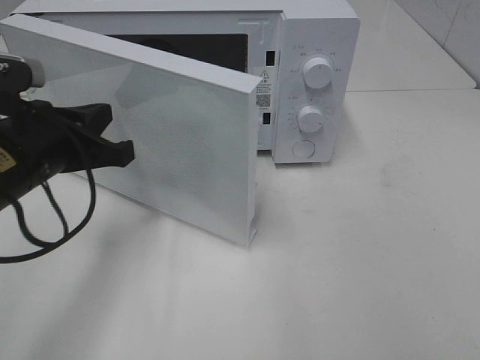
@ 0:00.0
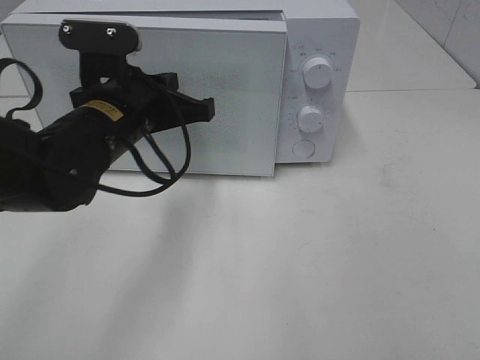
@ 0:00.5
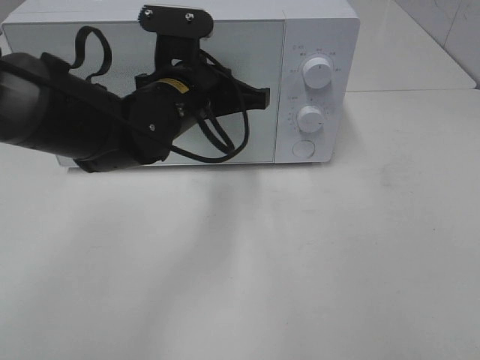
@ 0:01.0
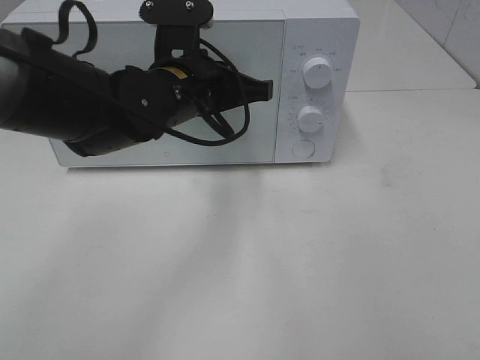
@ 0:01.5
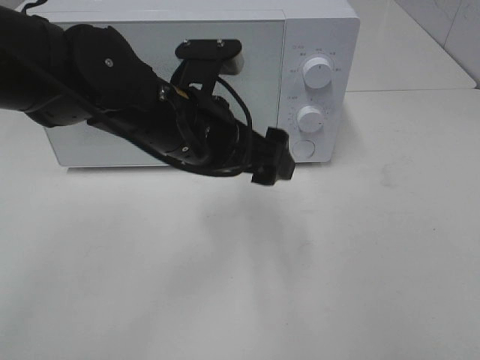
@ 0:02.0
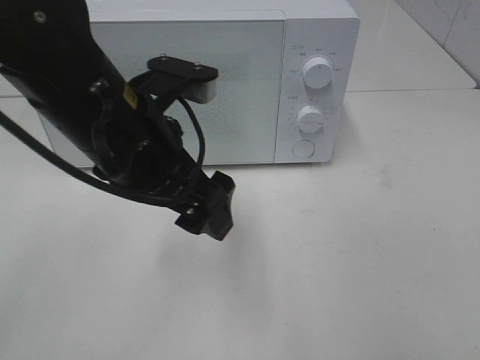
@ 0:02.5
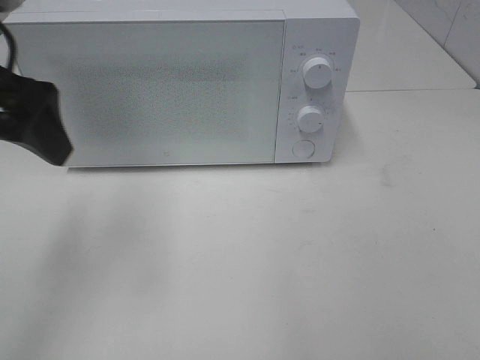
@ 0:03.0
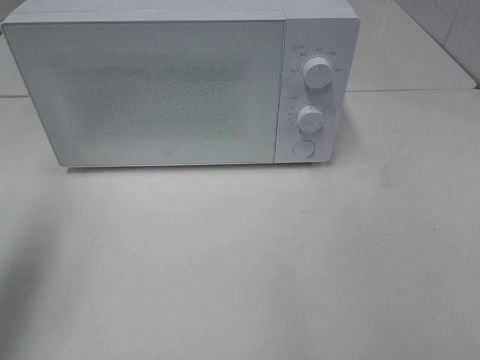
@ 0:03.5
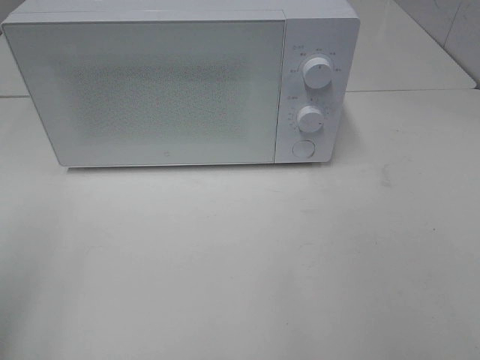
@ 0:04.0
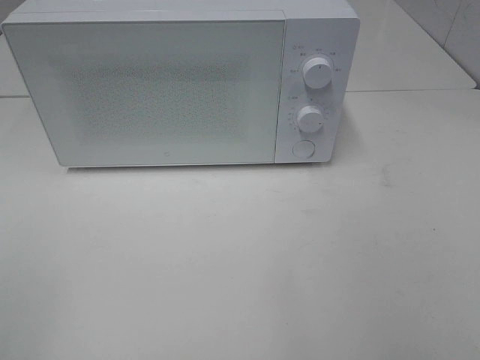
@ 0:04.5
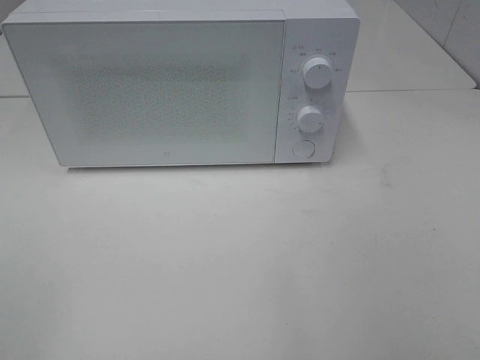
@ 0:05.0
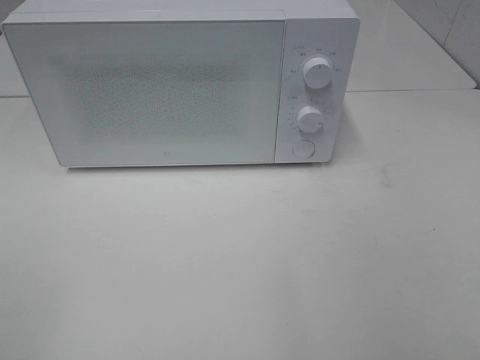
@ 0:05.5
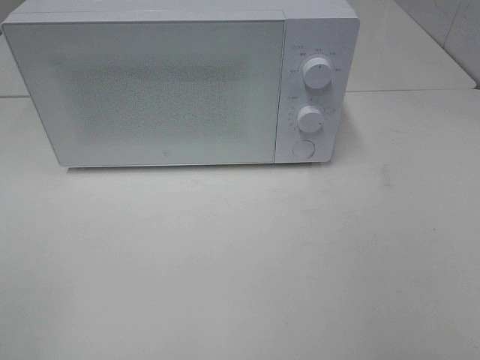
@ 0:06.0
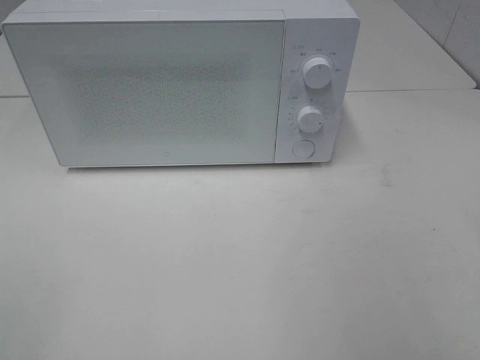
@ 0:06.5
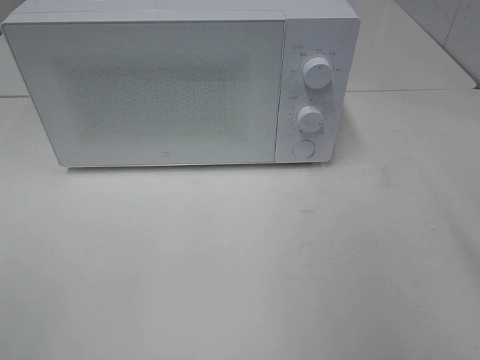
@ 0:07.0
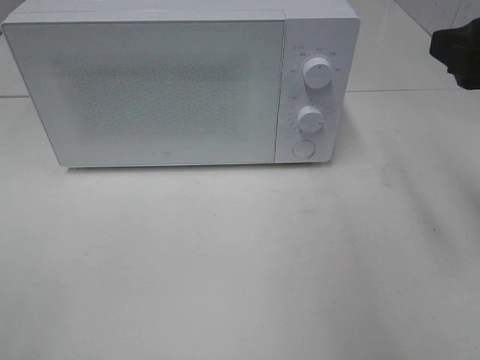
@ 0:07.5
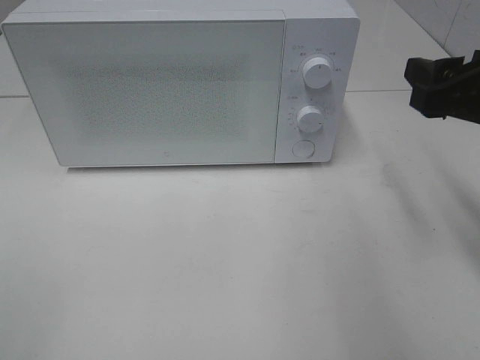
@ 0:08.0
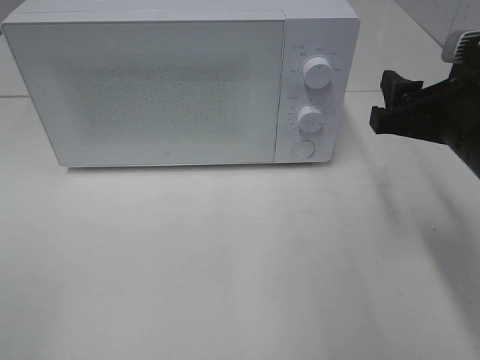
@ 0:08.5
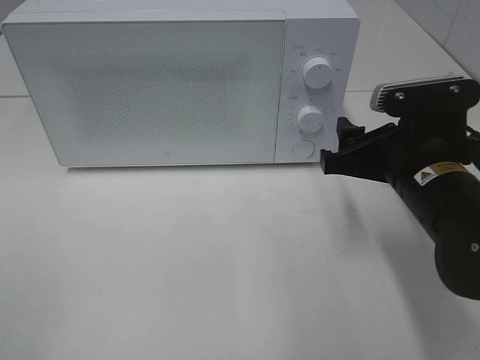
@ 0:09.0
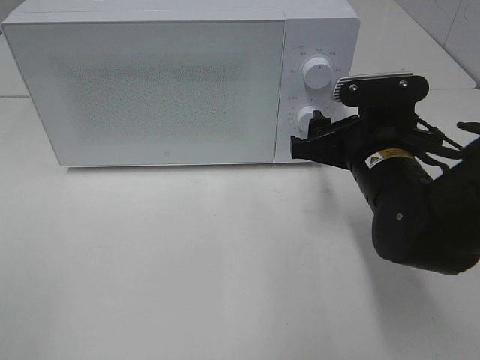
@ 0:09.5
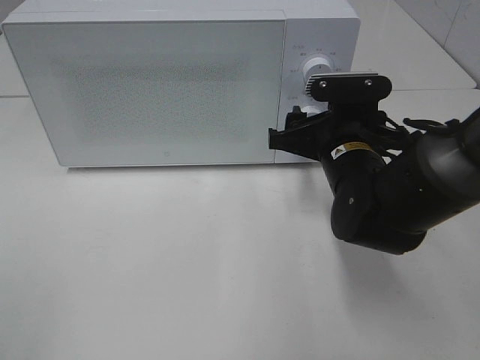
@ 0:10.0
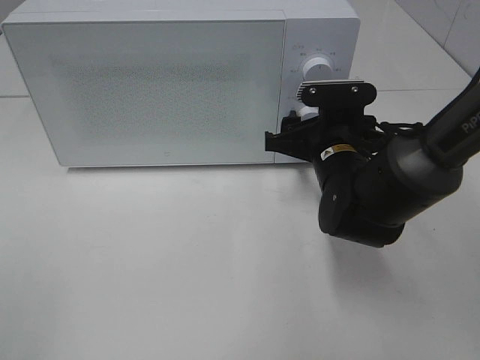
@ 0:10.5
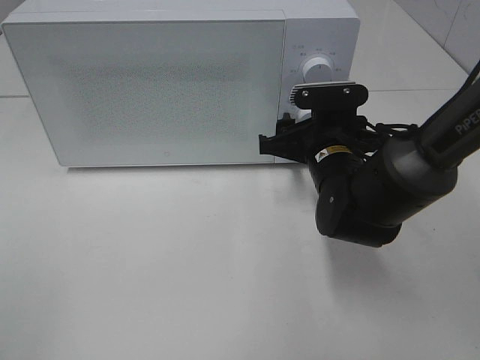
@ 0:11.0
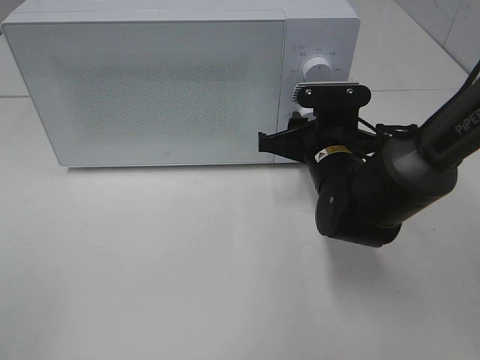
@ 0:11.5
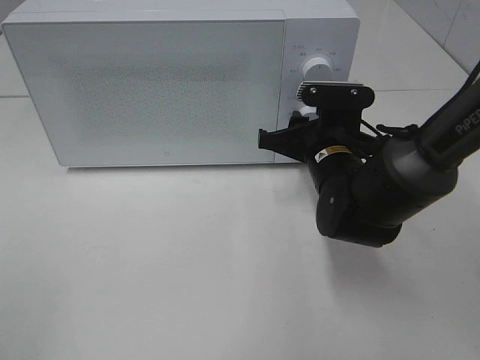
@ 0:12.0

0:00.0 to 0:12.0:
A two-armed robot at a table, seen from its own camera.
Task of the whole recording: Heat the burger.
Step, 0:00.0 to 0:02.5: Left hand: close the microwave door.
0:00.0 to 0:02.0: The left gripper is displaced to the right by about 15 cm, and opens.
0:02.0 to 0:04.0: The left gripper is displaced to the left and backward by some 35 cm.
0:06.0 to 0:08.0: The right gripper moves forward, some 20 cm.
0:08.0 to 0:10.0: The right gripper goes some 15 cm to the left, downward and forward.
0:10.0 to 0:12.0: The right gripper closes its fingers.

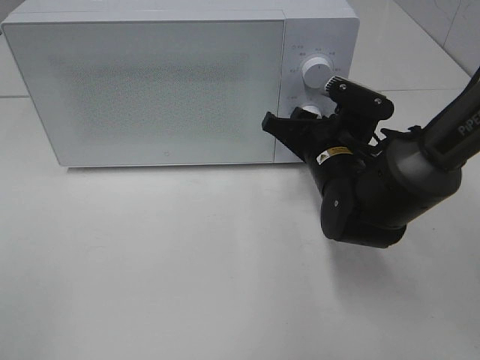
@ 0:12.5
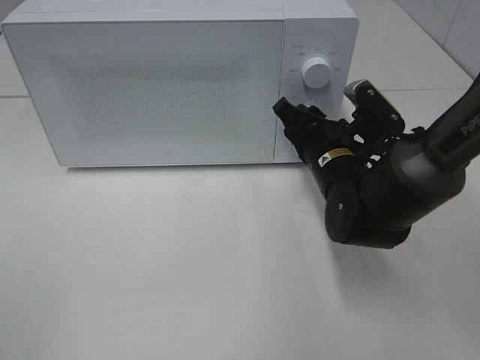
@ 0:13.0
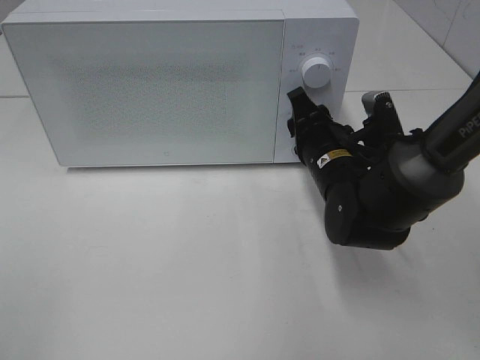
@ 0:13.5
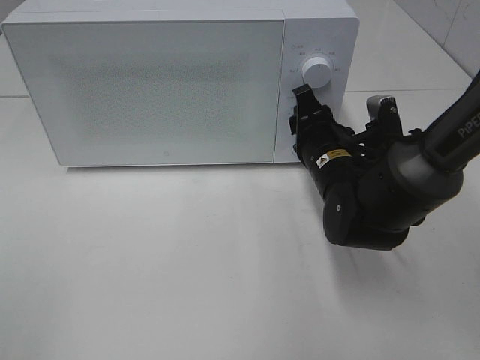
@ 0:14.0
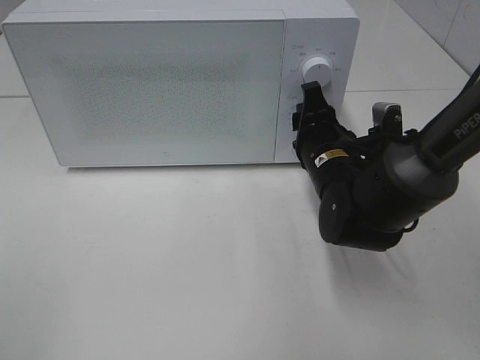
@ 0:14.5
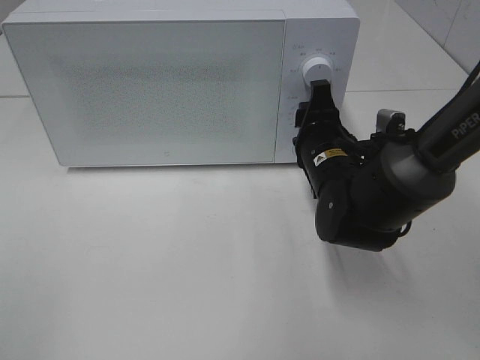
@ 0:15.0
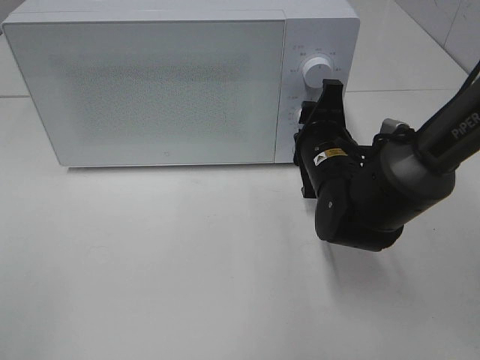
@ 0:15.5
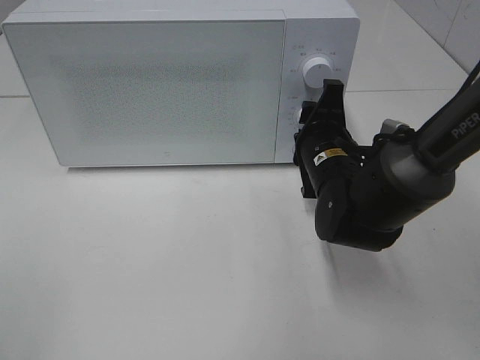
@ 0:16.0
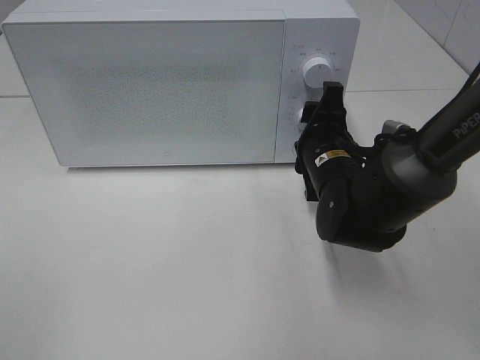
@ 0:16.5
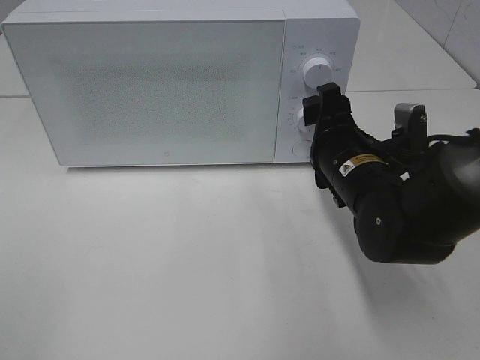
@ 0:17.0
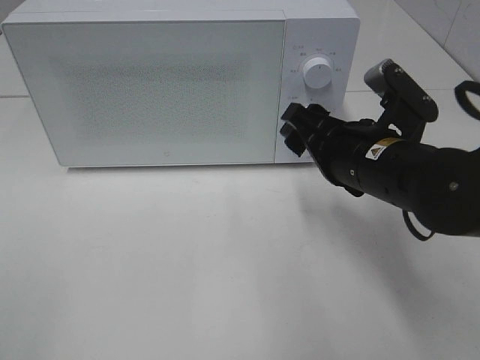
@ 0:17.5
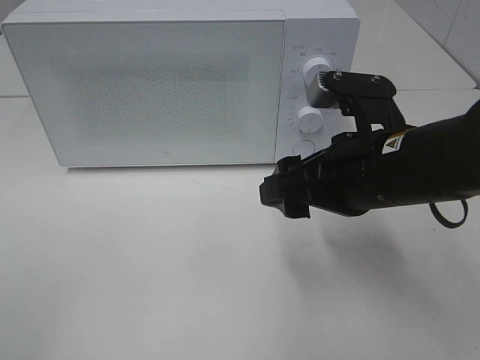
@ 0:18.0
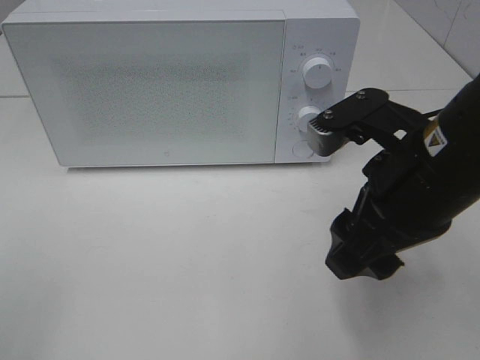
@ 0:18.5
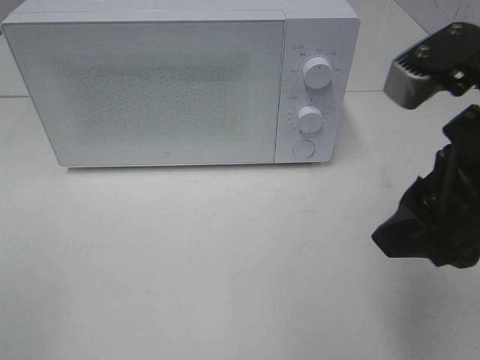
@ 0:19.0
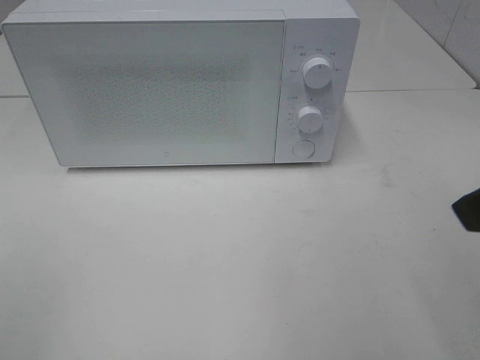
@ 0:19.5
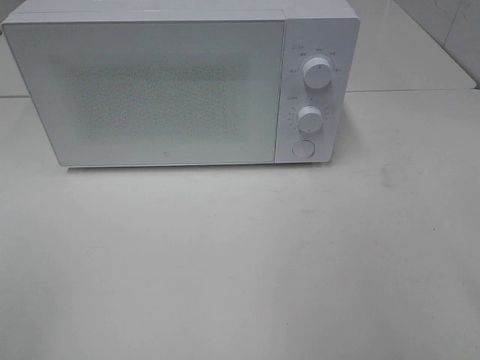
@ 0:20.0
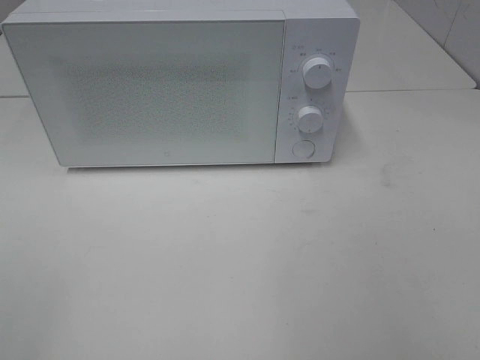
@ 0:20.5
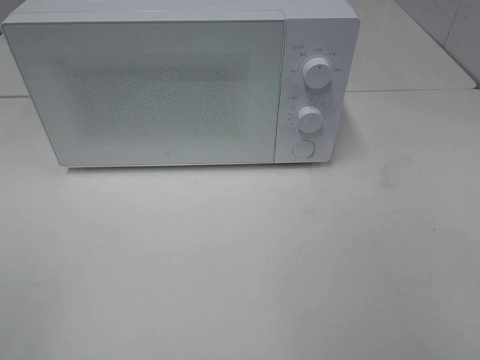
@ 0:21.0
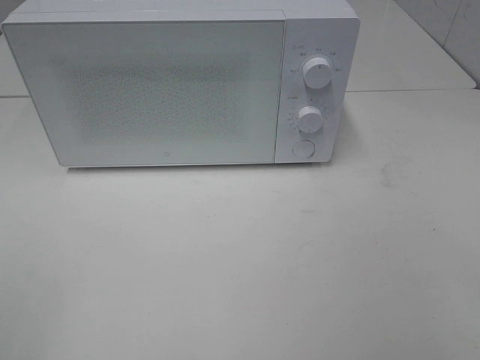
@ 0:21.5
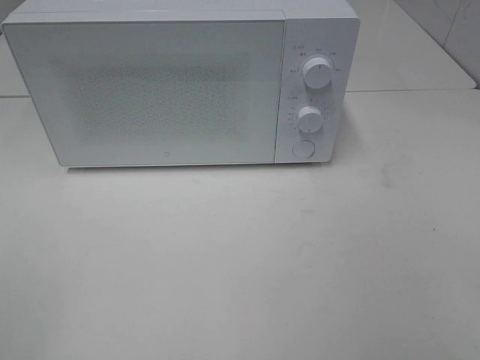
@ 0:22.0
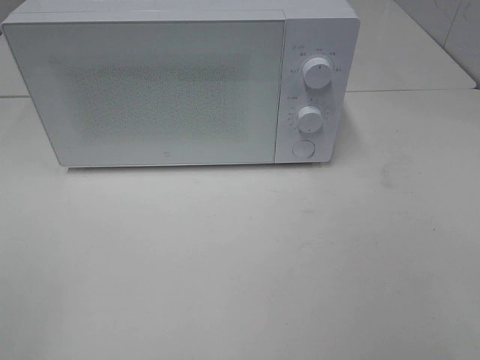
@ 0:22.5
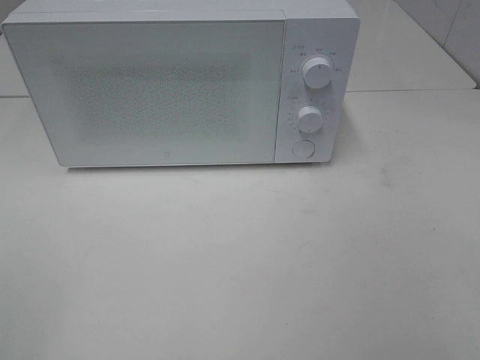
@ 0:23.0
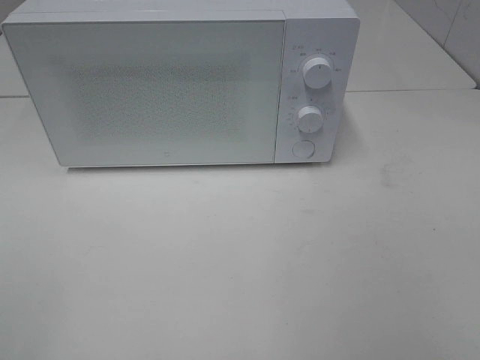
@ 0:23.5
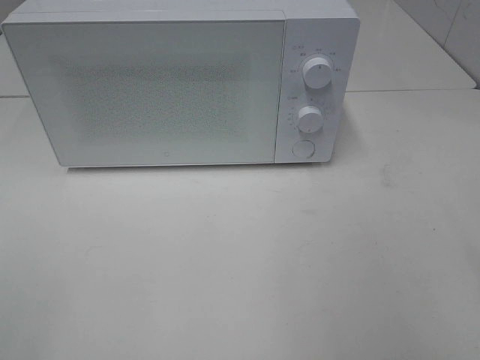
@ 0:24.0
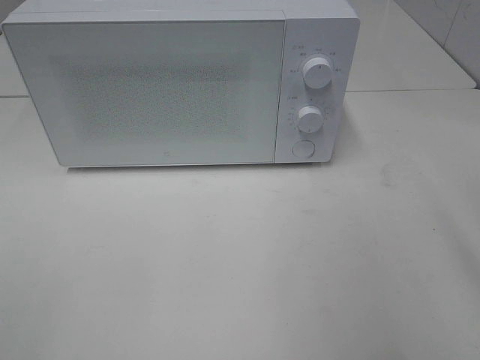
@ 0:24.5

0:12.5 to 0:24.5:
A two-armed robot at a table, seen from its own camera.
Task of the whole recording: Heat the burger.
Step, 0:12.5 to 0:17.0: Right hand: twist timer button.
0:14.5 to 0:16.5: There are only small adjustments of the grippers.
0:16.5 to 0:18.5: The right gripper shifts approximately 15 cm backward and upward.
0:18.5 to 0:20.5: The right gripper heads backward, to the right and upward, covering some 25 cm.

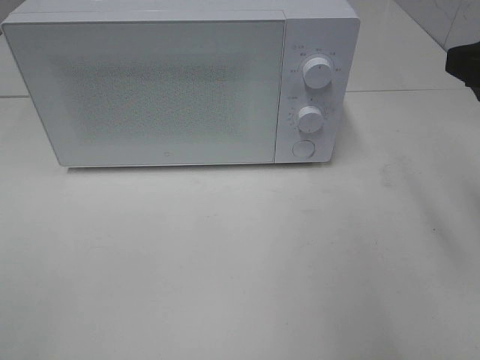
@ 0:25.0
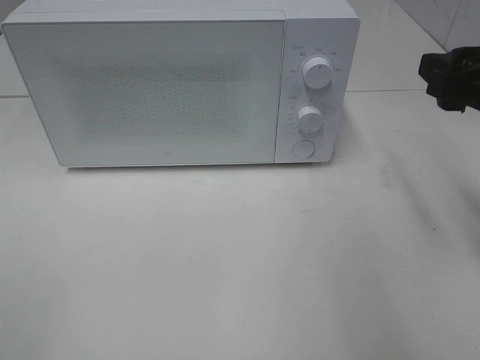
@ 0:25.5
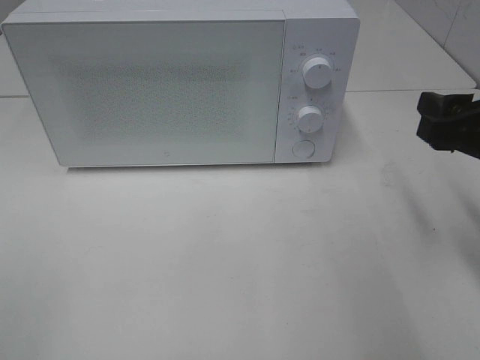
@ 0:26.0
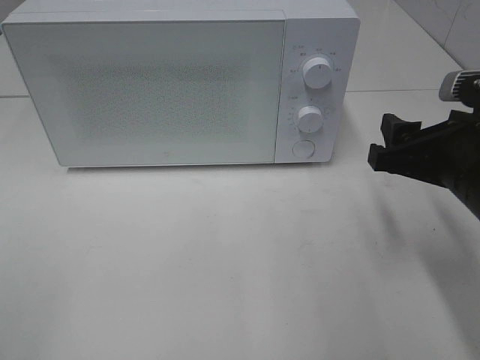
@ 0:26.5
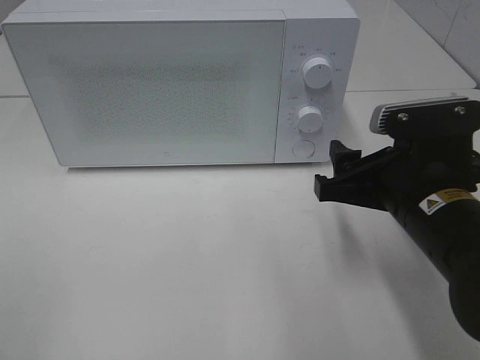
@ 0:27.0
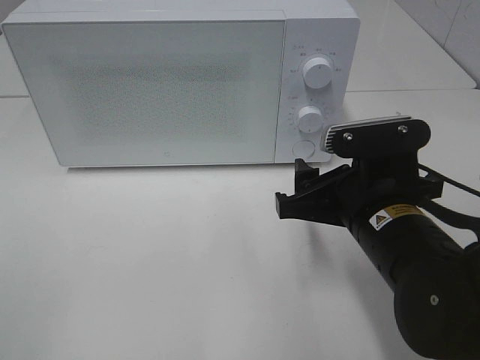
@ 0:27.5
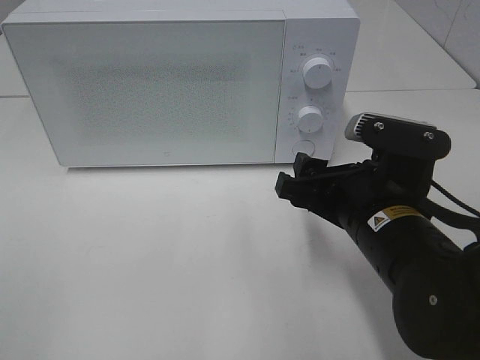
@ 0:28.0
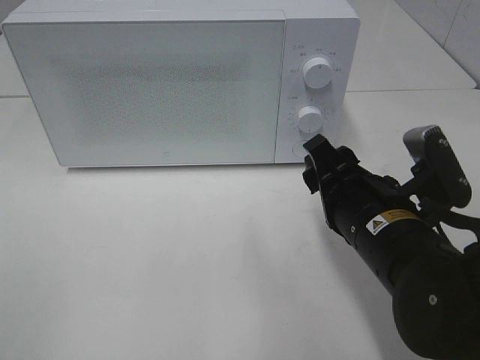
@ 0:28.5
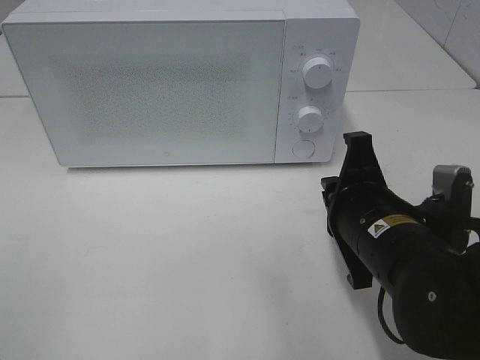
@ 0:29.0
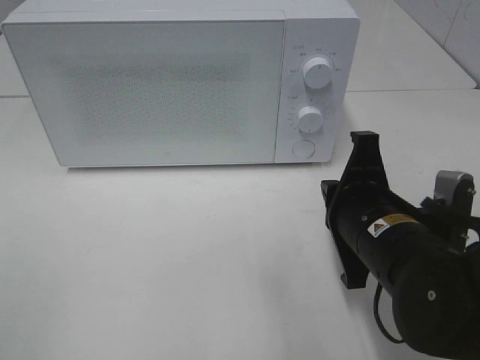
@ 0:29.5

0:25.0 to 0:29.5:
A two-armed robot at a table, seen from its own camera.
Task of the whole recording: Heat the burger.
0:25.0 to 0:27.0: The right gripper travels downward and to the left by approximately 15 cm.
0:27.0 to 0:29.5: The right gripper closes up.
